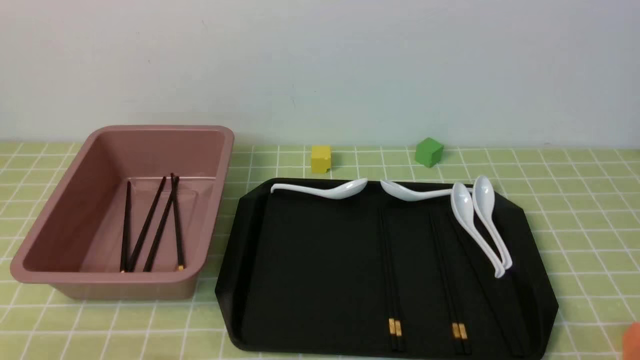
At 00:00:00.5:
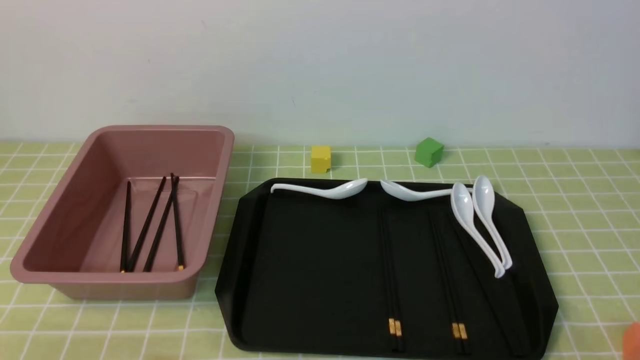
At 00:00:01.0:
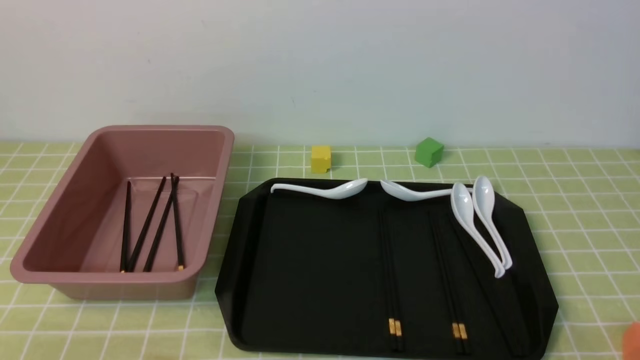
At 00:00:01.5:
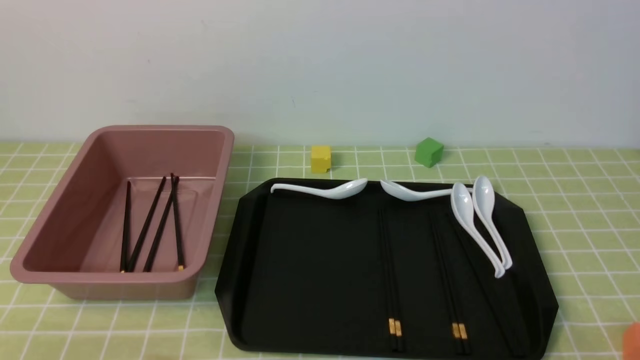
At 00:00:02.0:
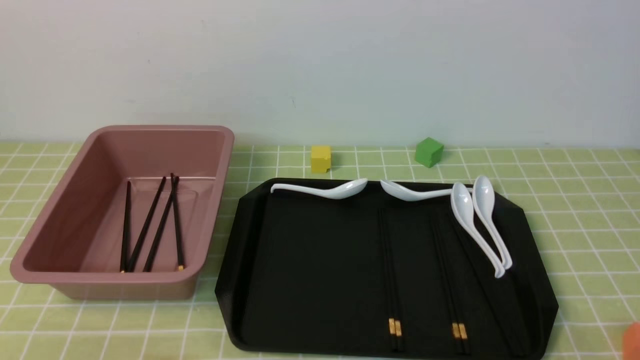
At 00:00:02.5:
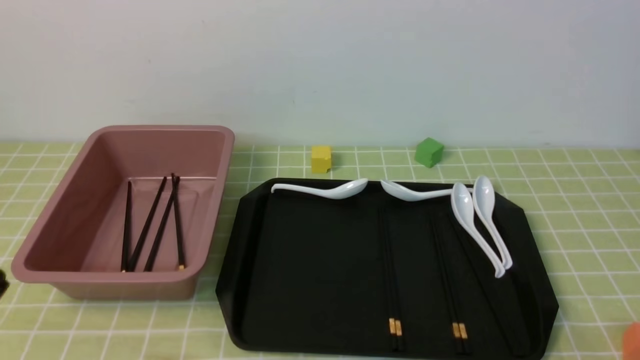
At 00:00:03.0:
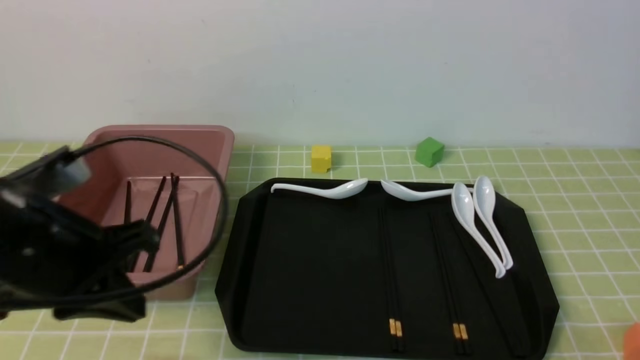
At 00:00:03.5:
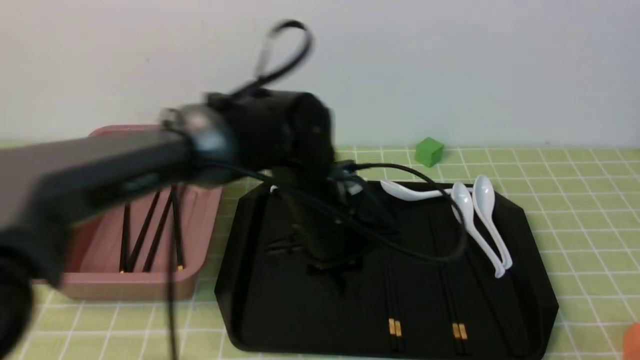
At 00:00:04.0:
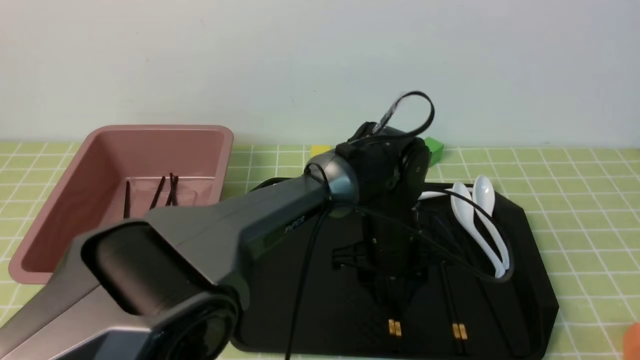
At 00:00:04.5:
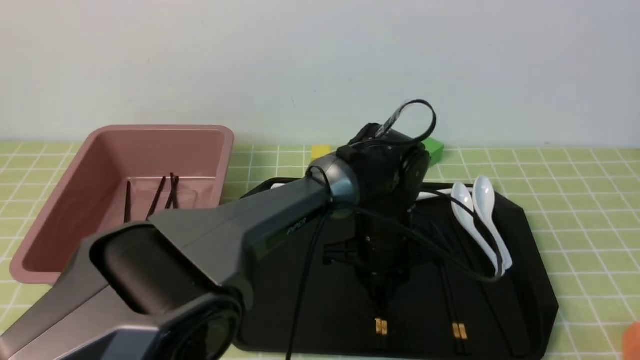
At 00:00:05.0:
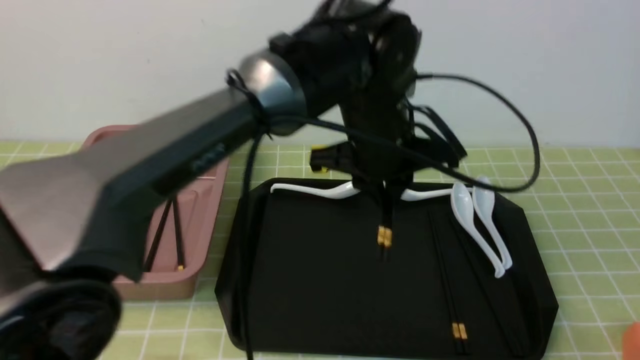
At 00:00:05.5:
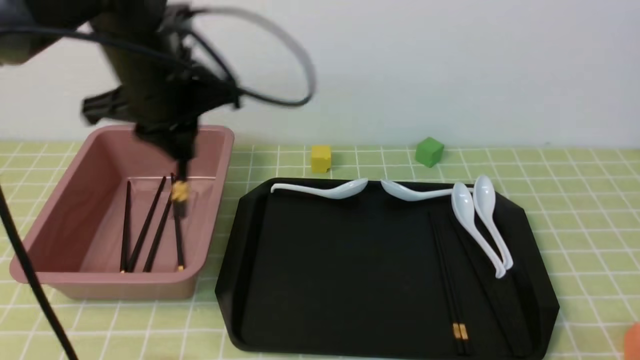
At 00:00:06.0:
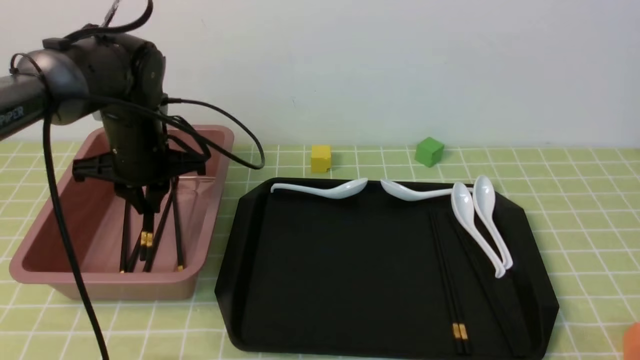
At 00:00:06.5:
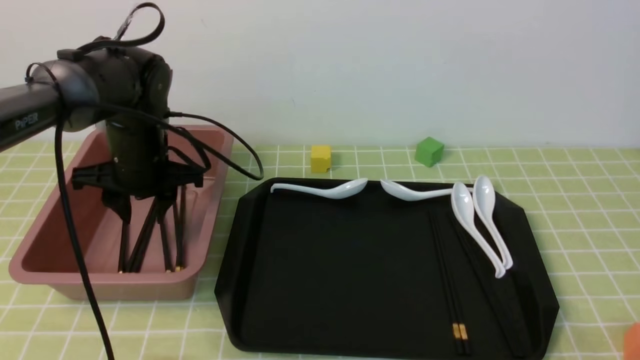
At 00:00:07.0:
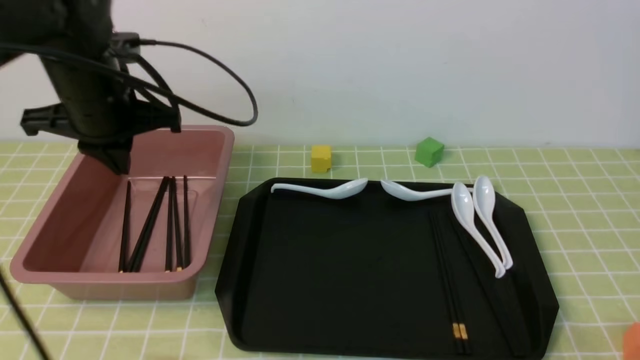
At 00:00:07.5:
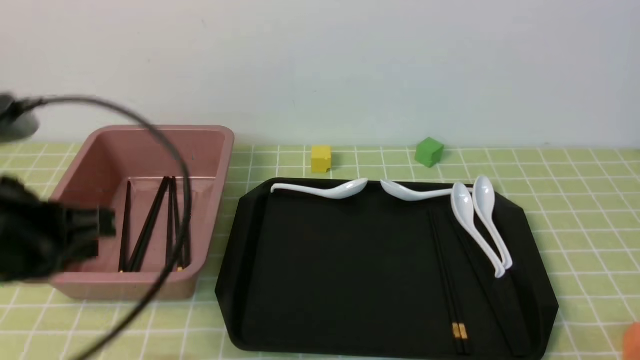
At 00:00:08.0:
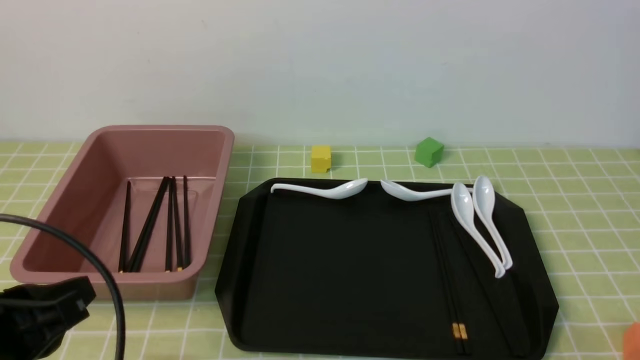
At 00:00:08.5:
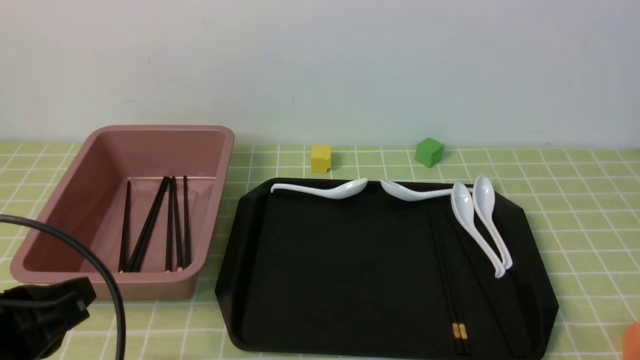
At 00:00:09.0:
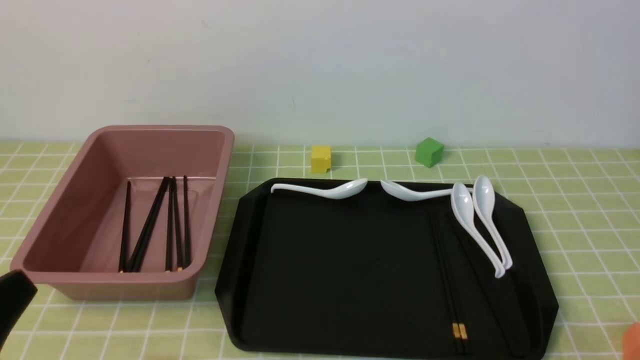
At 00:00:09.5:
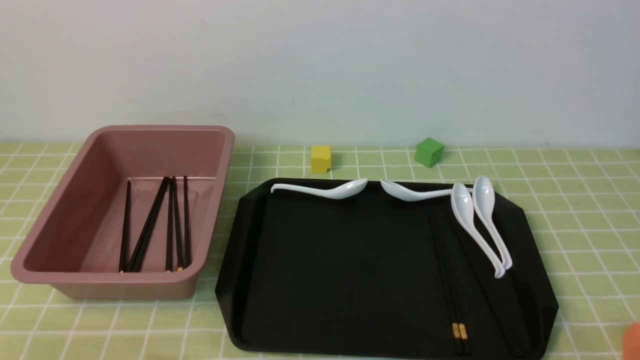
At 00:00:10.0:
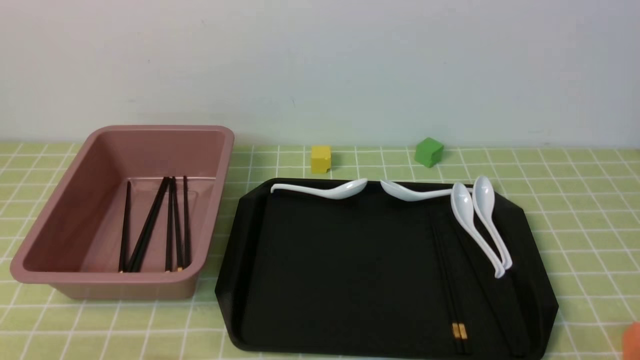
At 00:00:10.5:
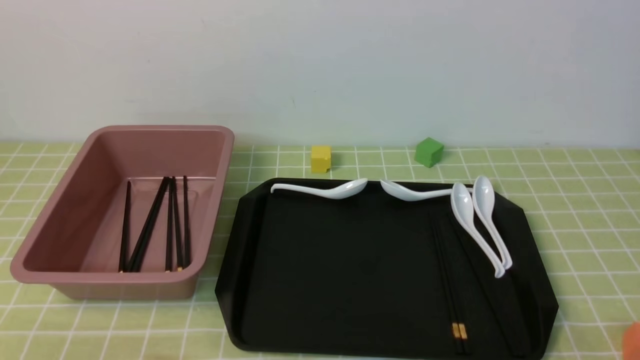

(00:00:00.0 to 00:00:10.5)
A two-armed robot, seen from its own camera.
Step, 00:00:00.0 - 00:00:04.5: use the left arm to grab a pair of chopsticks.
Step, 00:00:05.0 - 00:00:06.5: use the left arm to put the chopsticks into the lunch box.
00:00:02.0 - 00:00:04.0: The left gripper shifts roughly 40 cm to the right and forward, and opens its fingers.
00:00:04.0 - 00:00:06.5: The left gripper goes roughly 30 cm to the left, and closes, then reopens.
00:00:06.5 - 00:00:08.5: The left gripper heads backward, covering approximately 30 cm, and closes its fingers.
00:00:08.5 - 00:00:10.5: The left gripper travels downward and backward by about 10 cm.
